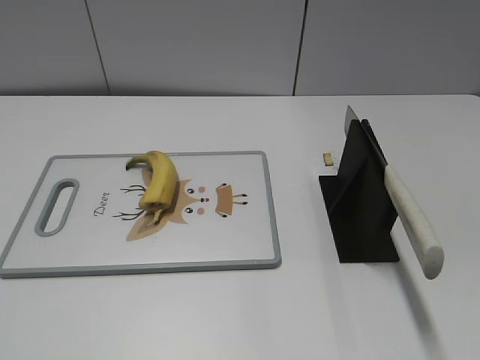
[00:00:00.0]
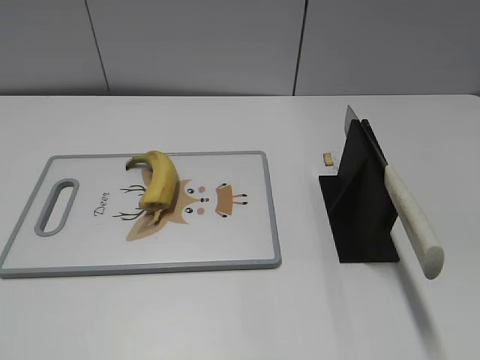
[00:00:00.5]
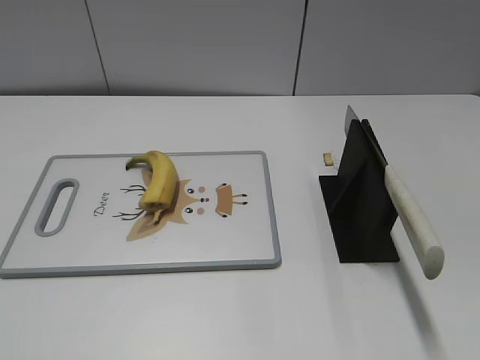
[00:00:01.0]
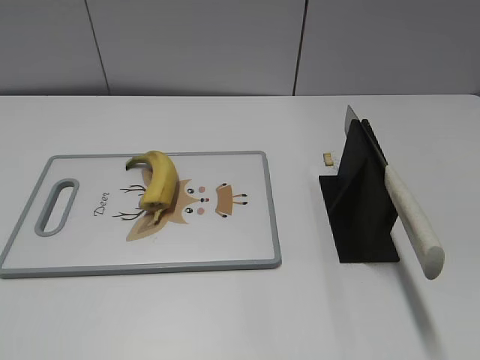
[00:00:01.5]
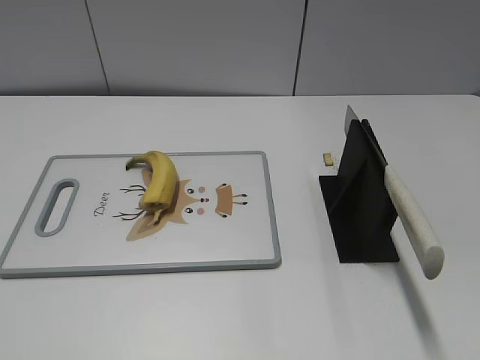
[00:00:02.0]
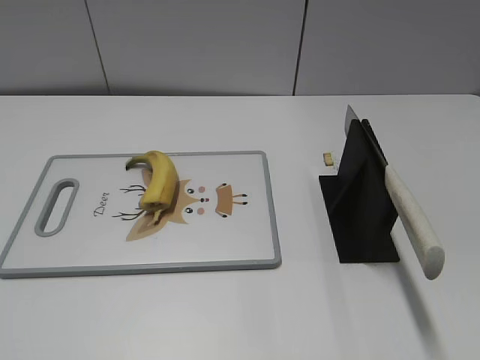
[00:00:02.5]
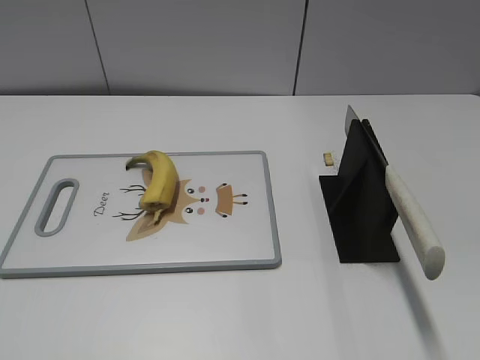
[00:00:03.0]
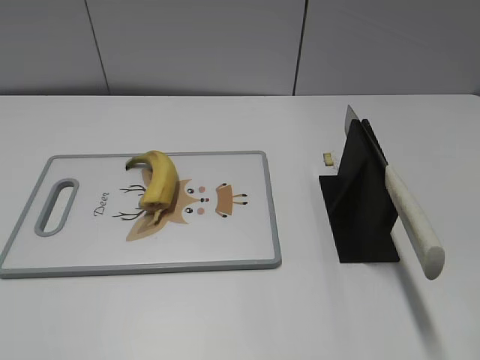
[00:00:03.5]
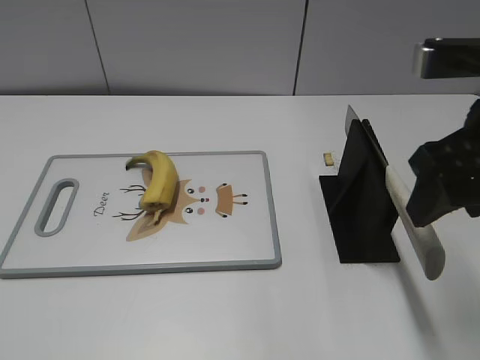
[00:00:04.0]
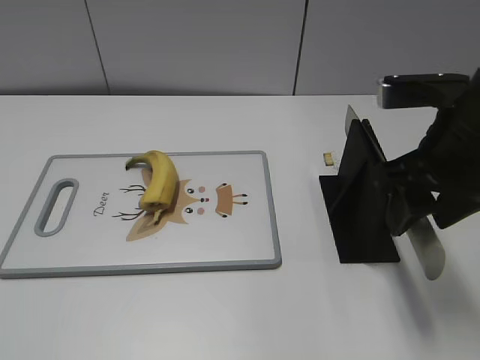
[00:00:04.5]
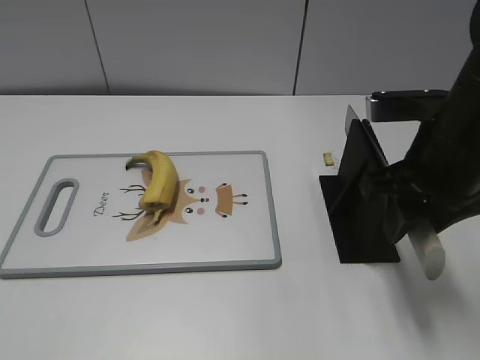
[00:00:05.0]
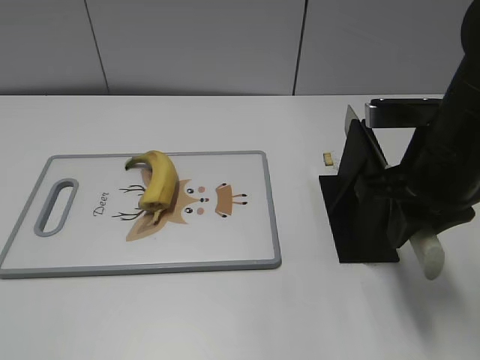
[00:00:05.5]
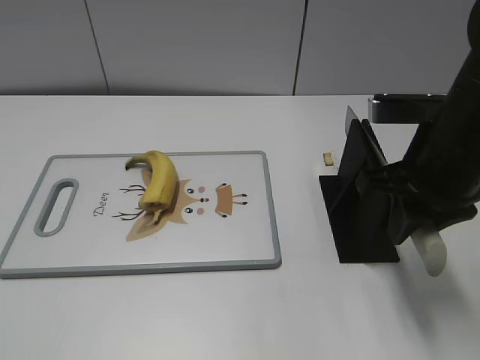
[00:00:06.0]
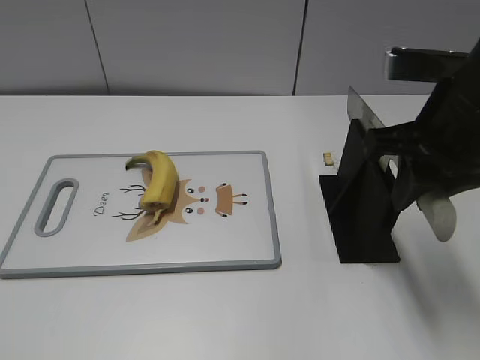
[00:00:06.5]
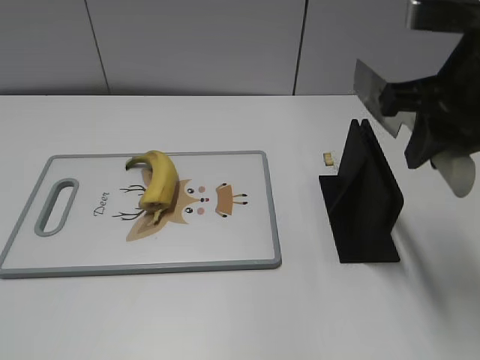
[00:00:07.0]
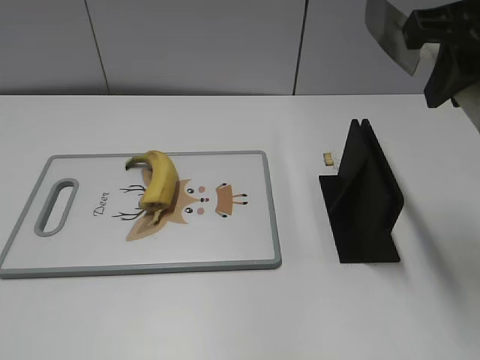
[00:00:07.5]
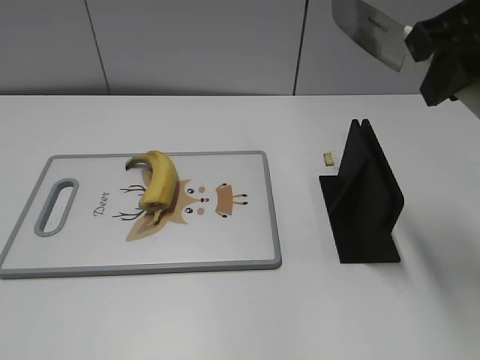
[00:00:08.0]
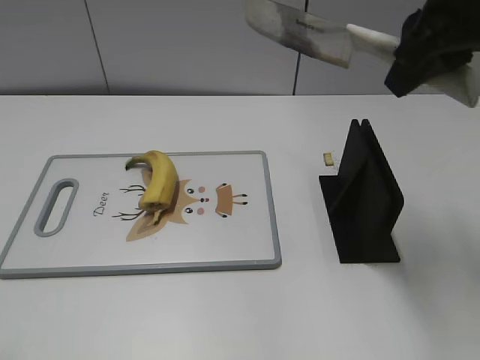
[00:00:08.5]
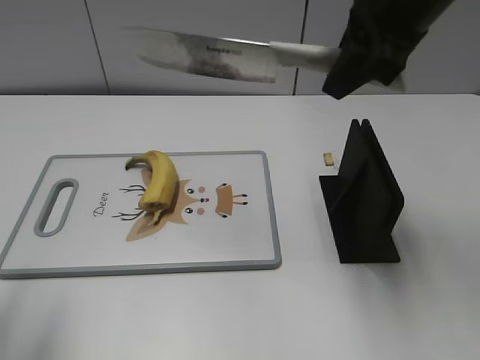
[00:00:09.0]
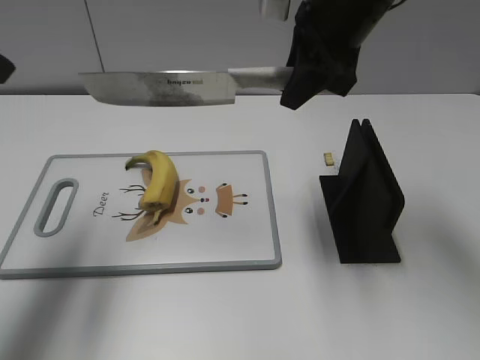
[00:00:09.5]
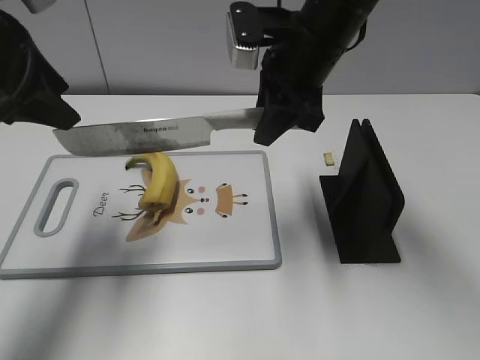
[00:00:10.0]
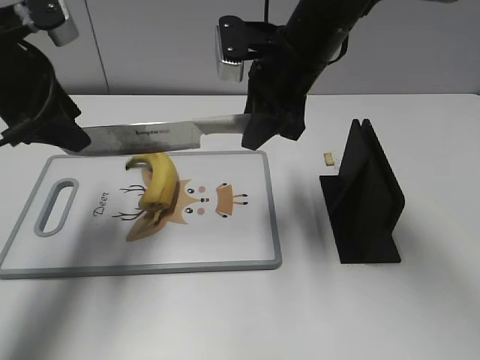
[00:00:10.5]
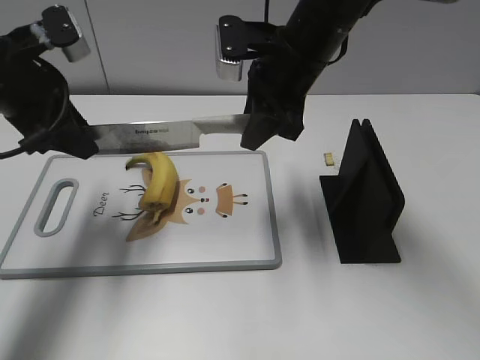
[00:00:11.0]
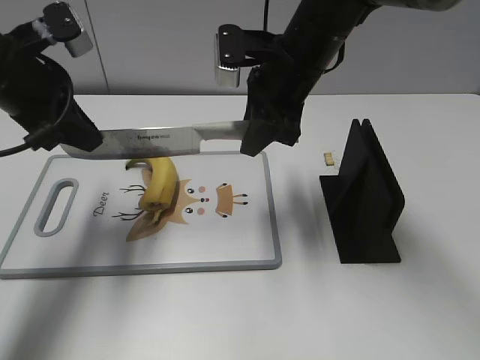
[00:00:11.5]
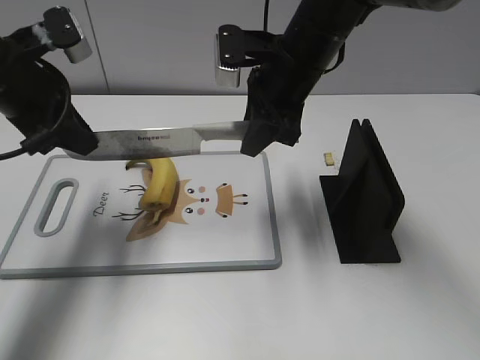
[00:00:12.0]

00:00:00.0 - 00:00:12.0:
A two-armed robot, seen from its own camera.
Task of the whole recording: cut banana.
Step, 00:00:00.0 - 00:00:07.0: Grab the knife handle with your right hand.
00:00:02.0 - 00:00:04.0: The right gripper travels forward and to the left by some 25 cm.
00:00:04.0 - 00:00:06.0: The right gripper goes roughly 5 cm downward, and closes.
00:00:06.0 - 00:00:08.0: The right gripper moves upward, about 15 cm.
00:00:08.0 - 00:00:10.0: The left gripper travels forward by about 30 cm; the right gripper heads to the left, forward and downward, covering about 20 cm.
00:00:10.0 - 00:00:12.0: The left gripper goes some 5 cm downward, and closes.

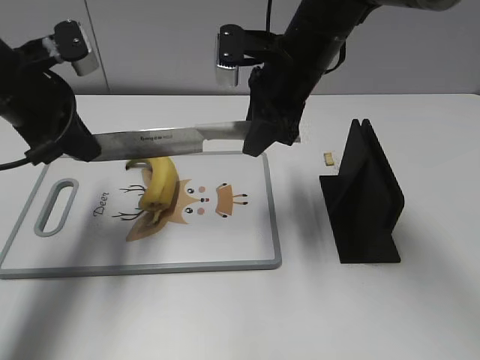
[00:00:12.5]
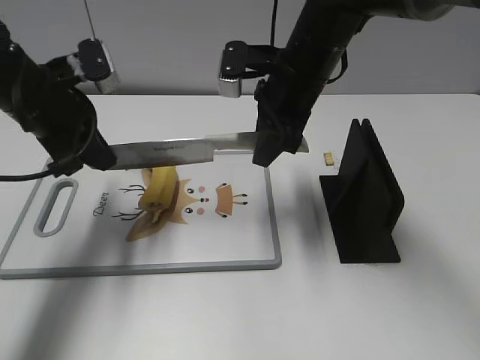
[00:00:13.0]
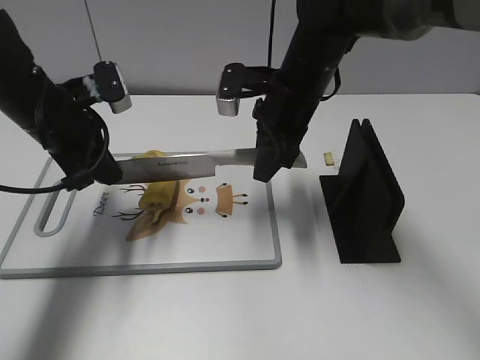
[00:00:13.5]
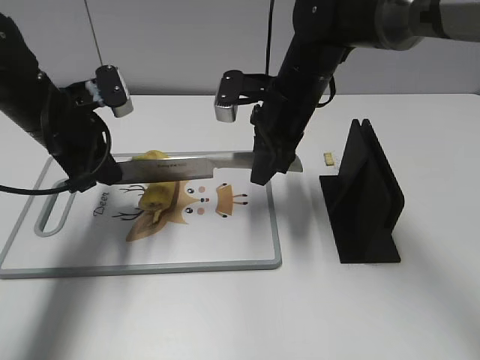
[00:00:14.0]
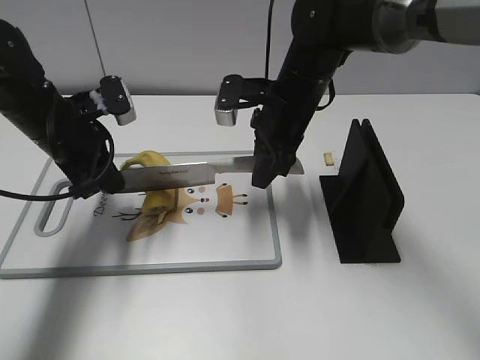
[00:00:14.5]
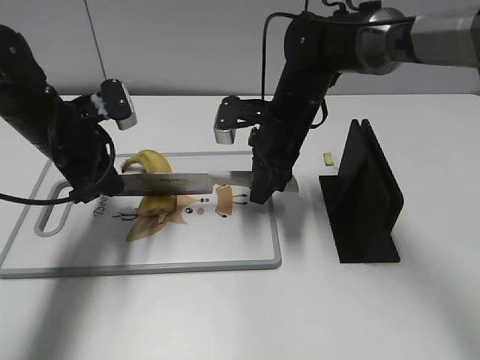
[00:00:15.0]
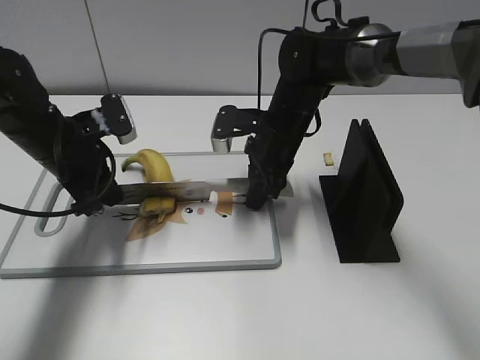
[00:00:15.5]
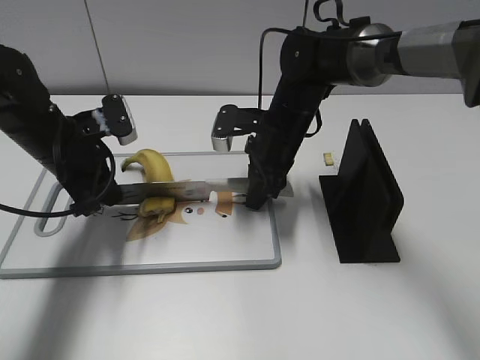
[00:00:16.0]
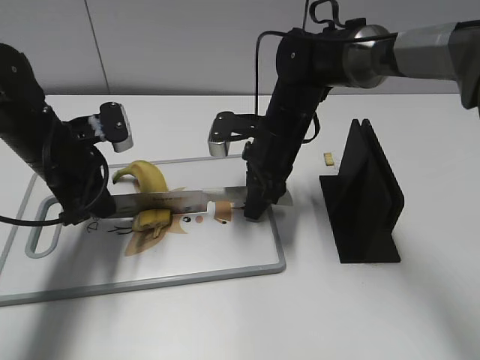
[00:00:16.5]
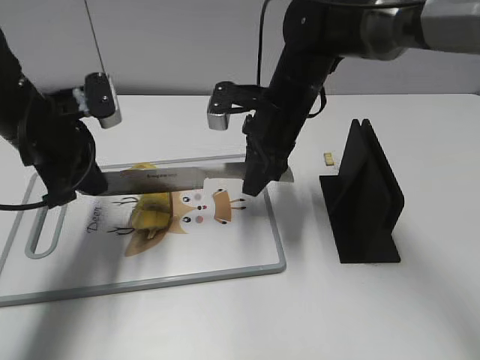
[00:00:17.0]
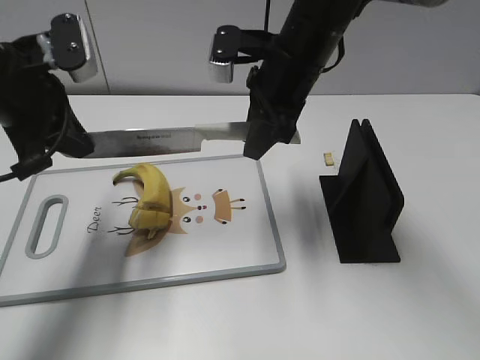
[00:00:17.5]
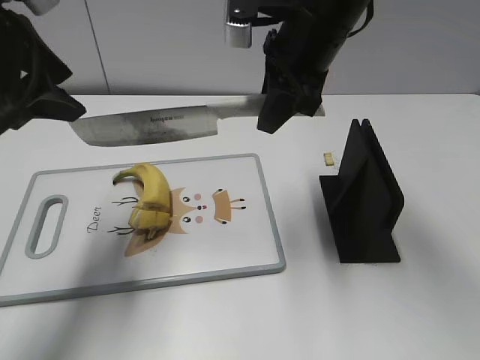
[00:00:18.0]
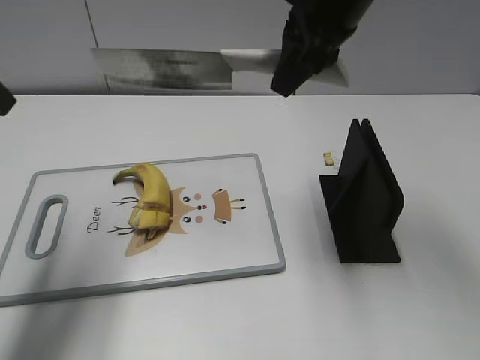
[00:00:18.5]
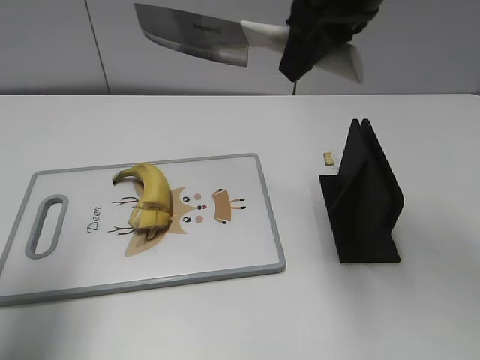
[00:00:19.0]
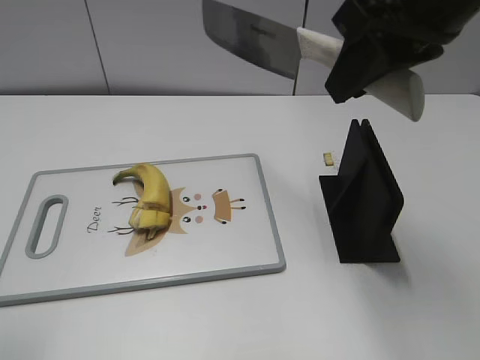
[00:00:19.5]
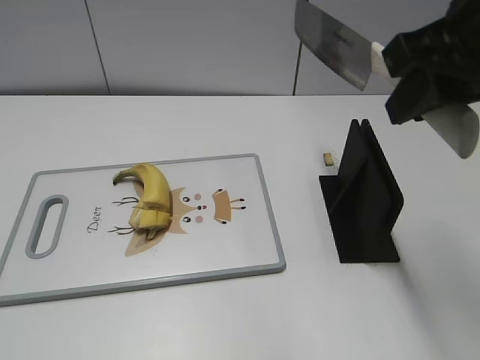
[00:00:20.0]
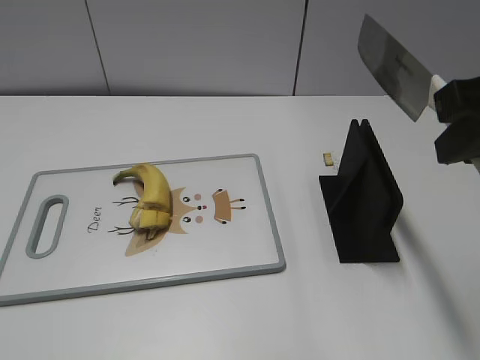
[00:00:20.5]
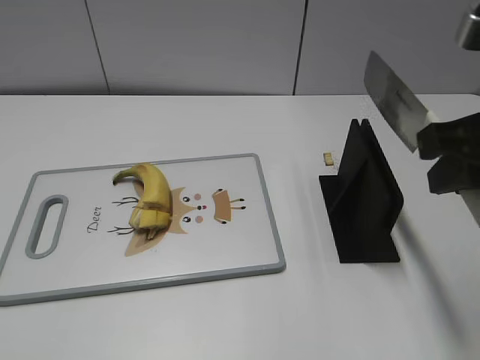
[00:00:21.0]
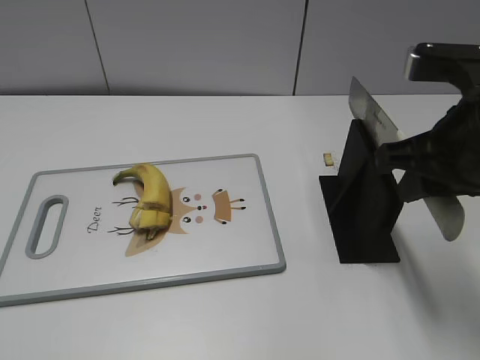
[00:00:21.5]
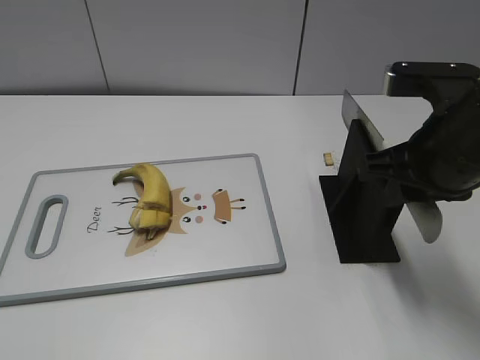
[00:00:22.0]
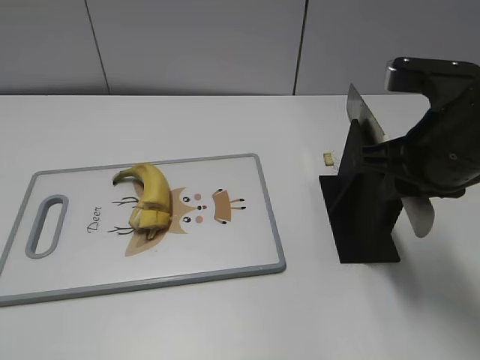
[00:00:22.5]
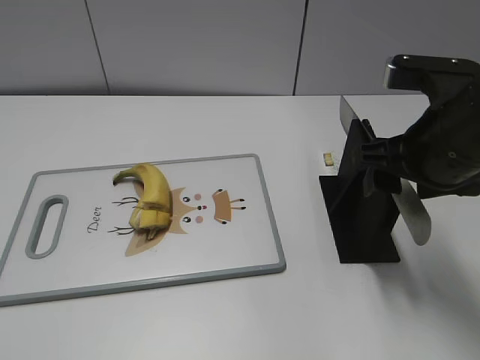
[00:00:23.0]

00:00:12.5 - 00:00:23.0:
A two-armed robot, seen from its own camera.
Task of the whole recording: cut banana.
Step, 00:00:14.5 - 00:00:19.5: Cut the banana with your right hand.
Step, 00:00:20.0 - 00:00:21.5: Lift the knife with your right hand.
00:00:12.5 - 00:00:14.5: Both grippers travel together downward, approximately 5 cm.
00:00:14.5 - 00:00:16.5: The right gripper changes place by some 5 cm.
00:00:16.5 - 00:00:19.0: The left gripper goes some 20 cm upward and backward, and opens, while the right gripper goes approximately 25 cm upward.
00:00:19.0 - 00:00:21.0: The left gripper goes about 20 cm backward, while the right gripper goes roughly 15 cm backward, to the right and downward.
00:00:21.0 - 00:00:23.0: The right gripper moves downward and forward, some 10 cm, and opens up.

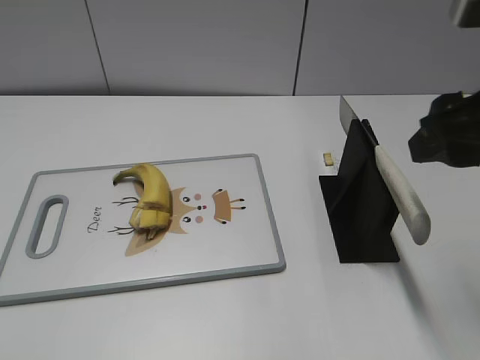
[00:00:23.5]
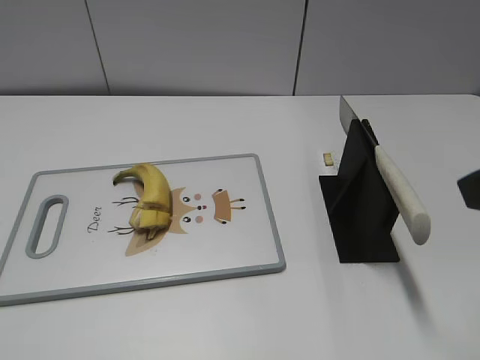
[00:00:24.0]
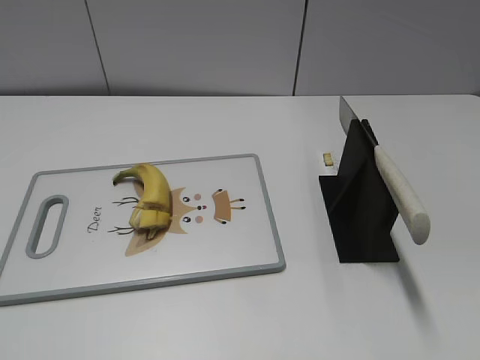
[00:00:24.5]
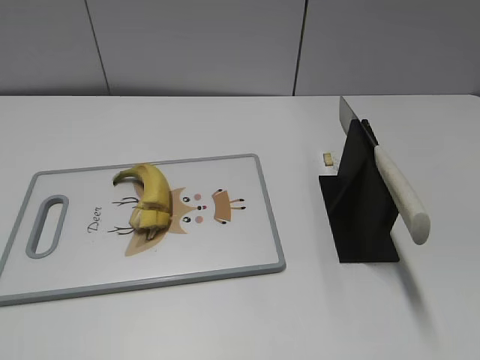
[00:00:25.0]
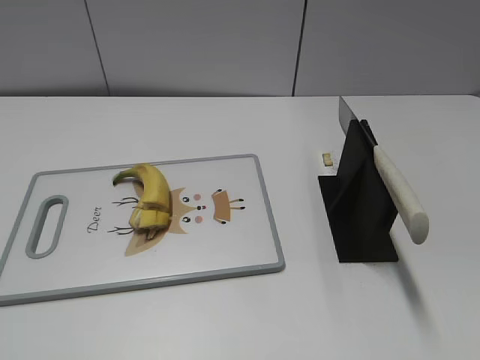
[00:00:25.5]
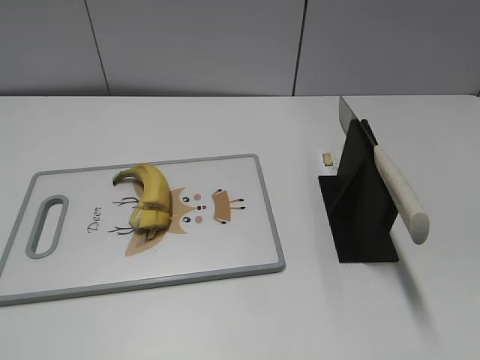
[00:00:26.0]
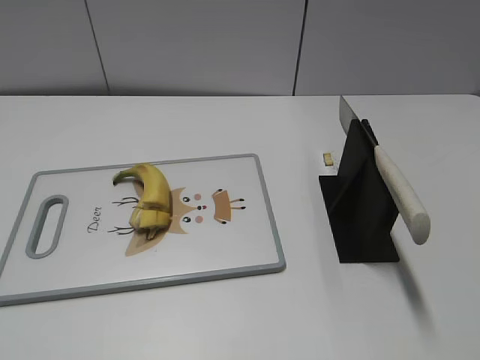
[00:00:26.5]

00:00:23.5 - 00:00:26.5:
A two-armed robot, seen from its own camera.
Task of the whole recording: cut banana.
Step, 00:00:23.5 - 00:00:26.5: Place the knife on the storage rack with your right hand.
00:00:23.5 - 00:00:25.0: The right gripper is displaced backward and to the right by about 20 cm.
